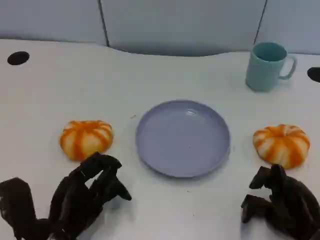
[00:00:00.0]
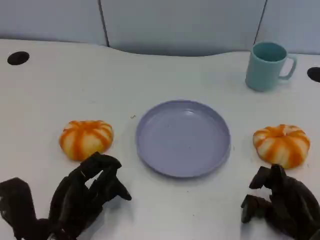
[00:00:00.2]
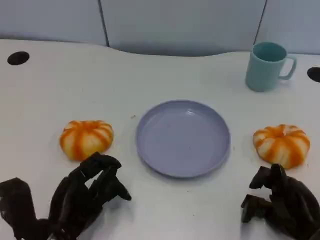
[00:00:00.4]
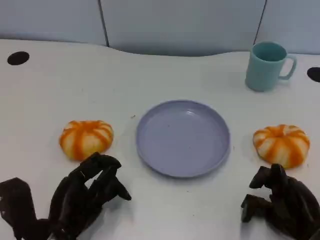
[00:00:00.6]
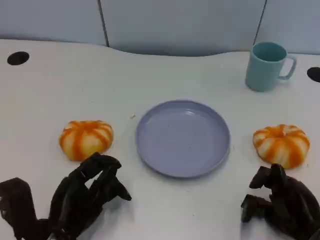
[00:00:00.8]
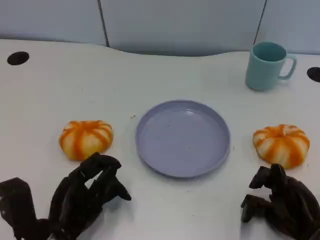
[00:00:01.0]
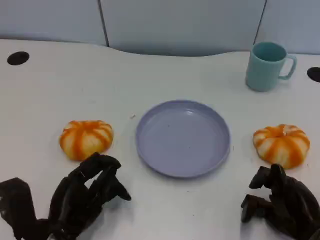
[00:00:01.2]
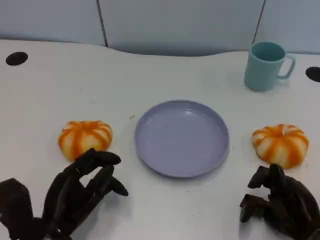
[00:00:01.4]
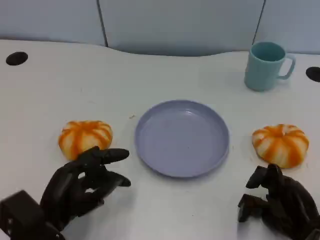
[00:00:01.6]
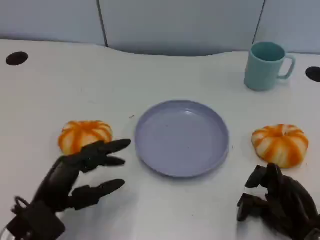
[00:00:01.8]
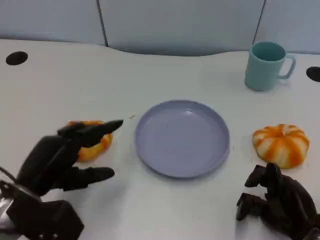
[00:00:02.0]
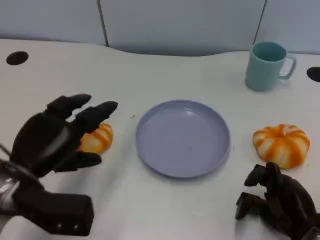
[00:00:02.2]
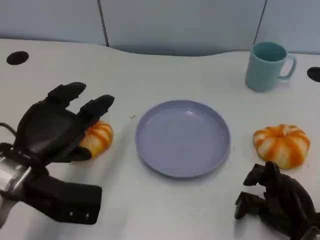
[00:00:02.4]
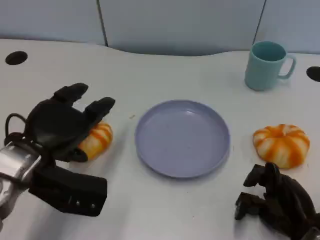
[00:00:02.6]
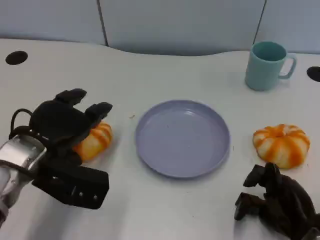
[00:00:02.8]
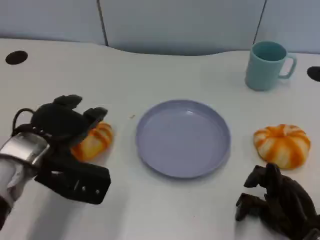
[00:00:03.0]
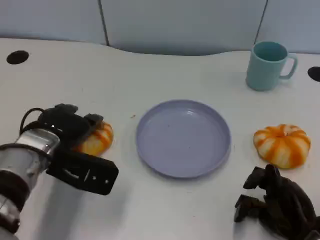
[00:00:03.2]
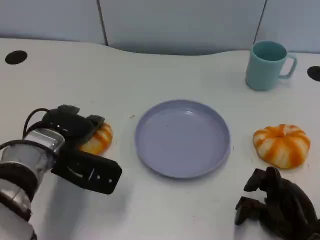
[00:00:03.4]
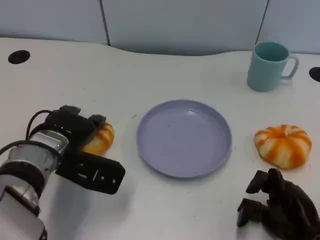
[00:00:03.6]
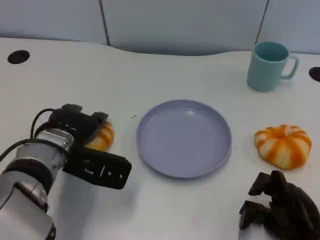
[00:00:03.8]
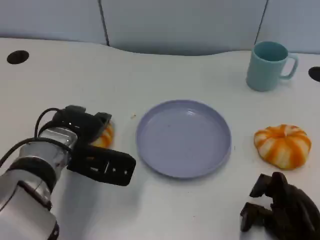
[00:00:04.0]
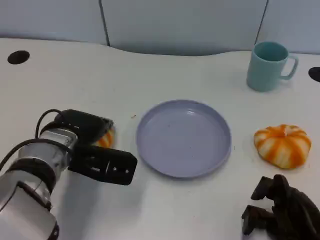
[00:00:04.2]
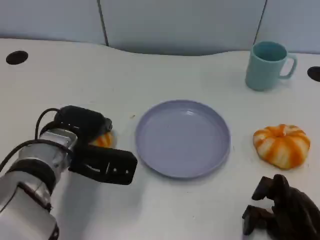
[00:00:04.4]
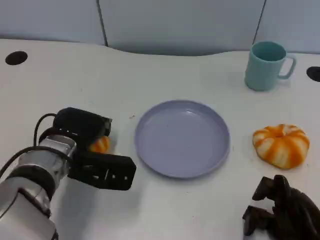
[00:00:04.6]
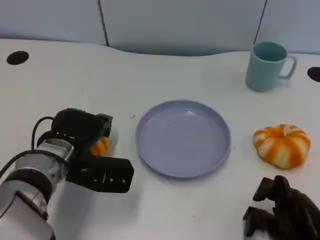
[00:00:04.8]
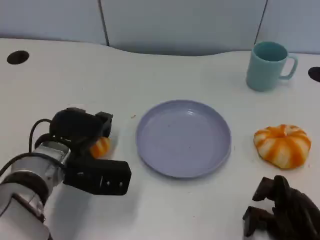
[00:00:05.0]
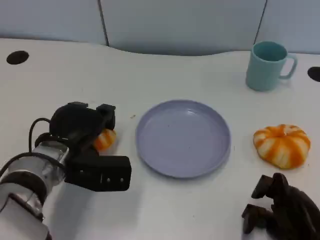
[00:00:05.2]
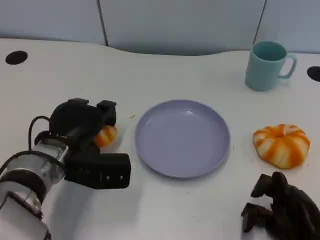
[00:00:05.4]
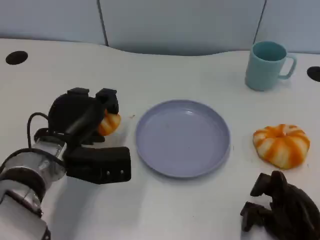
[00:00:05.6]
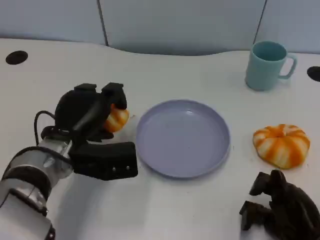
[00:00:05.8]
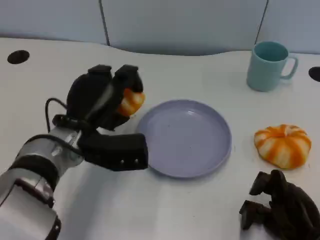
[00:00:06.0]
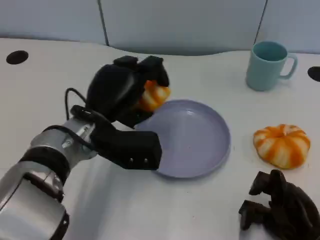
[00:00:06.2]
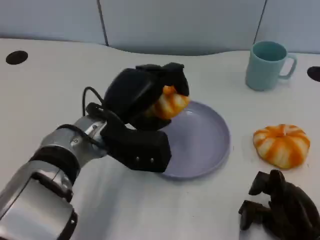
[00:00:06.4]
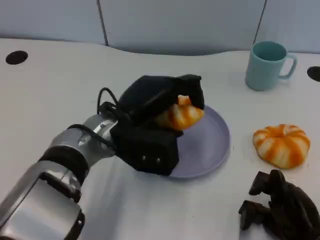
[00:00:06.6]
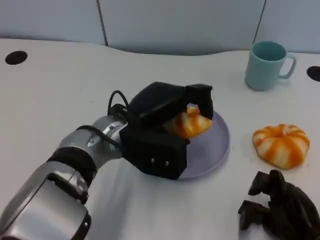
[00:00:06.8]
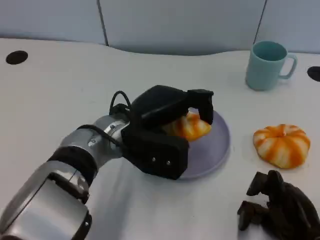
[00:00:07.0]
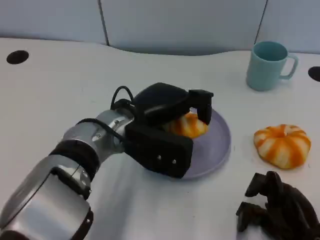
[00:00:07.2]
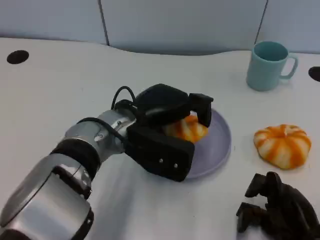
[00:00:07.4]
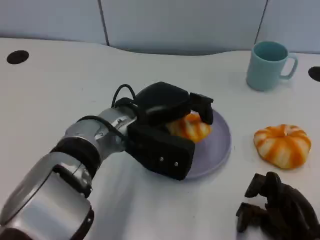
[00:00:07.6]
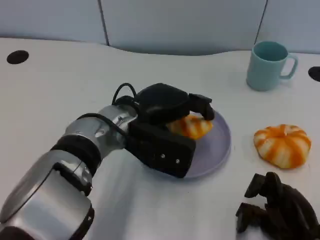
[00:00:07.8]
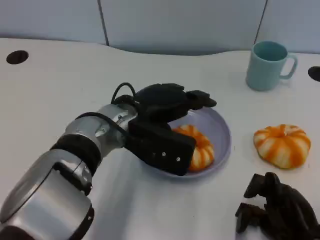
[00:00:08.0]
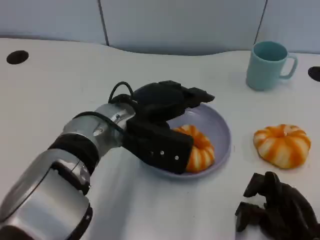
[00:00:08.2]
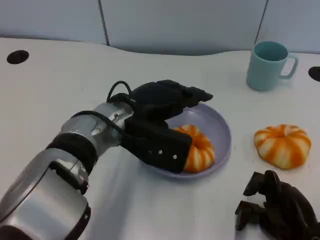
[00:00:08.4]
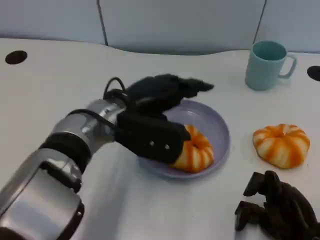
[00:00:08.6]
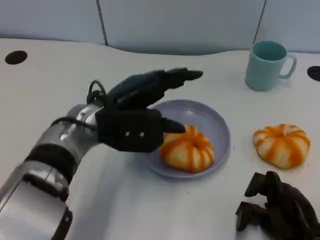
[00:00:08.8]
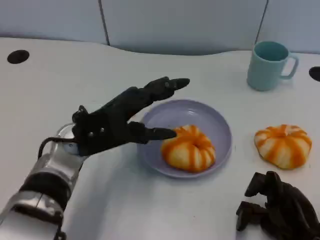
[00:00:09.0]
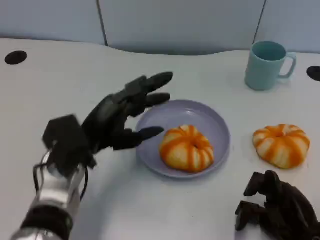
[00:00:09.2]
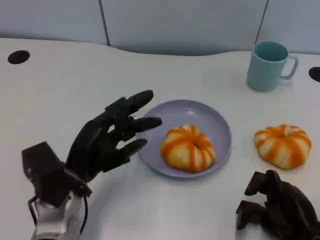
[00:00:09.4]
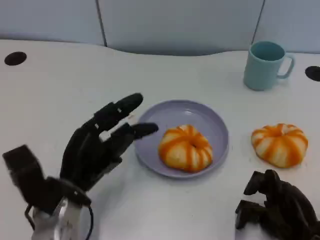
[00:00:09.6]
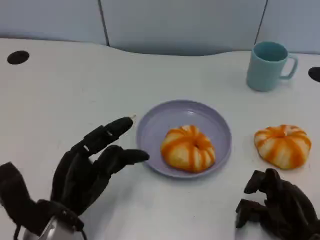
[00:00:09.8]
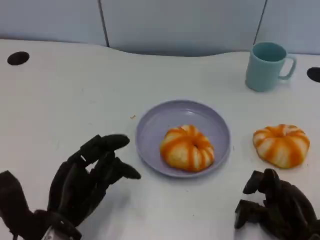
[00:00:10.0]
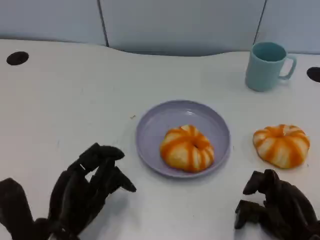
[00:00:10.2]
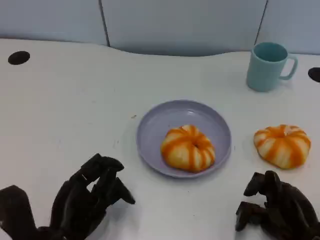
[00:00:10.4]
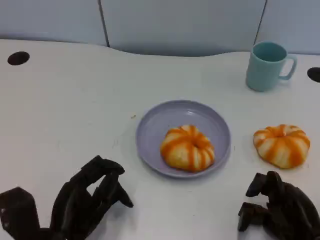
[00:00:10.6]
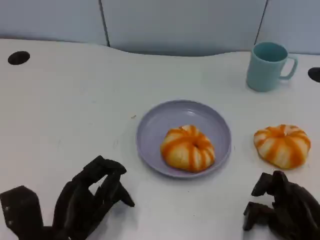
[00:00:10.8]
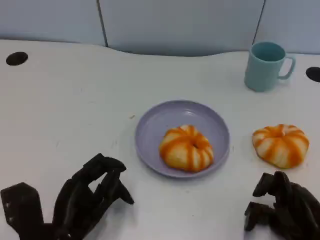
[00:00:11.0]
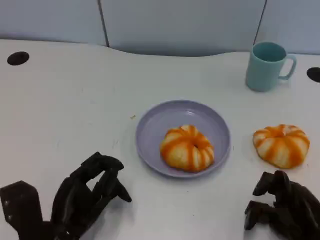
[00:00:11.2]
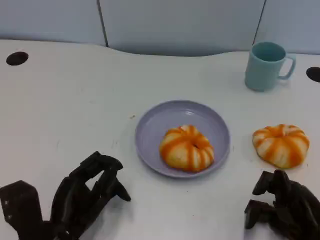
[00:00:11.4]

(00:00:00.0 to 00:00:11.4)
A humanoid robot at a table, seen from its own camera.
Task of the whole recording: Grasp the bread from the table and place it into the plate.
00:00:00.0 - 00:00:01.4: There are only small adjustments of the hands.
00:00:01.4 - 00:00:02.8: The left hand travels upward and forward by roughly 15 cm.
00:00:02.8 - 00:00:04.2: The left hand moves approximately 5 cm.
00:00:05.6 - 00:00:07.2: The left hand moves to the right and upward, approximately 10 cm.
00:00:07.2 - 00:00:08.6: The hands move only a little.
00:00:08.6 - 00:00:10.0: The left hand heads backward, downward and to the left, covering approximately 20 cm.
00:00:10.0 - 00:00:11.4: The hands move only a little.

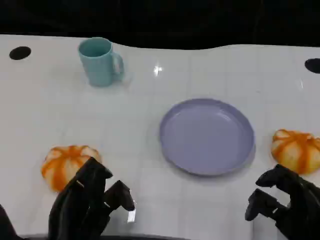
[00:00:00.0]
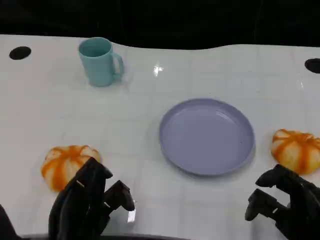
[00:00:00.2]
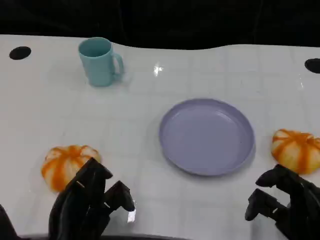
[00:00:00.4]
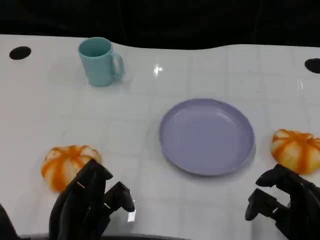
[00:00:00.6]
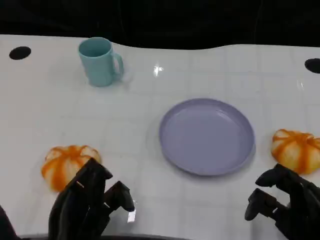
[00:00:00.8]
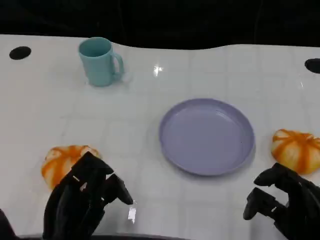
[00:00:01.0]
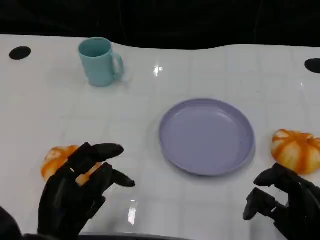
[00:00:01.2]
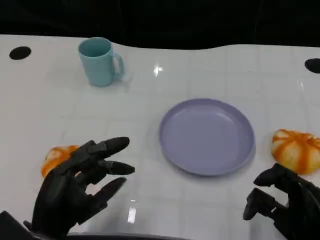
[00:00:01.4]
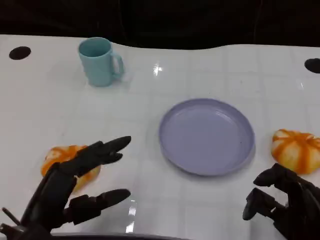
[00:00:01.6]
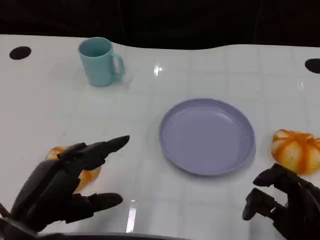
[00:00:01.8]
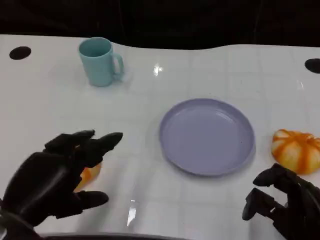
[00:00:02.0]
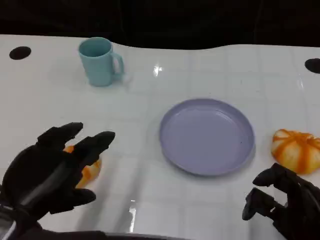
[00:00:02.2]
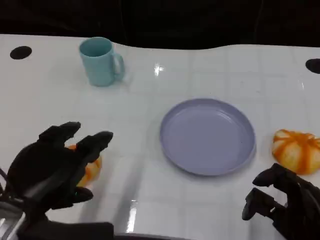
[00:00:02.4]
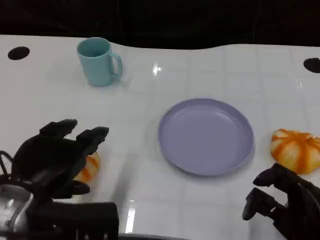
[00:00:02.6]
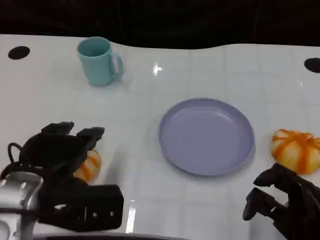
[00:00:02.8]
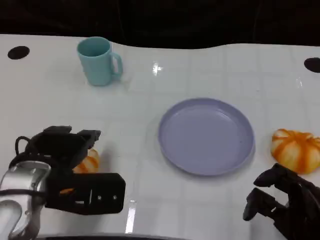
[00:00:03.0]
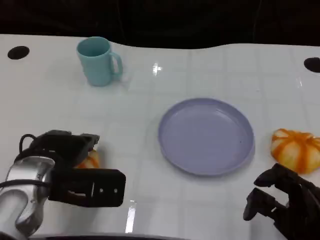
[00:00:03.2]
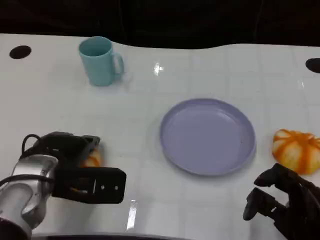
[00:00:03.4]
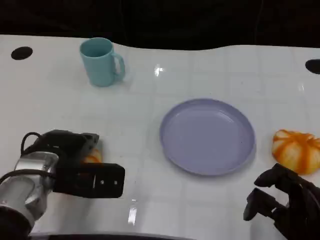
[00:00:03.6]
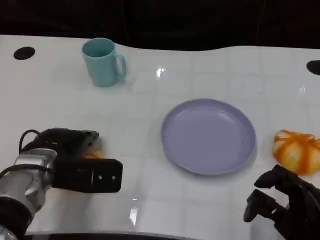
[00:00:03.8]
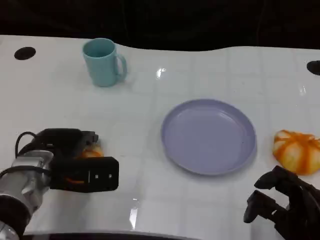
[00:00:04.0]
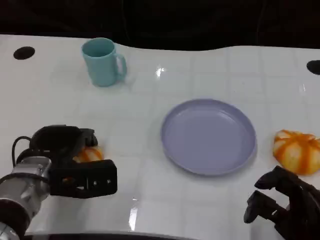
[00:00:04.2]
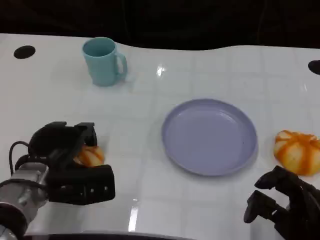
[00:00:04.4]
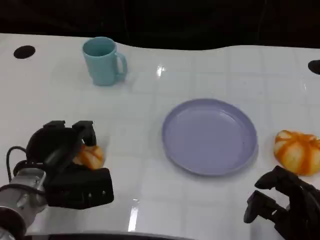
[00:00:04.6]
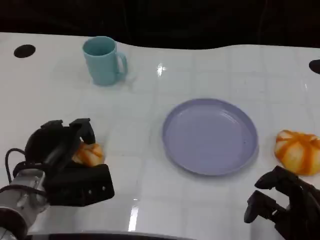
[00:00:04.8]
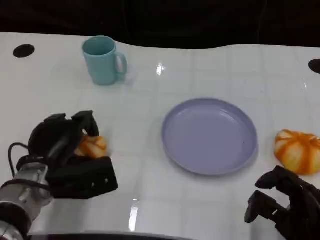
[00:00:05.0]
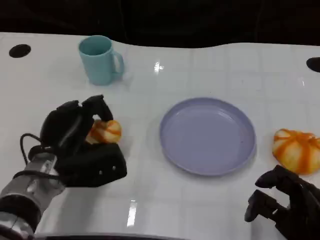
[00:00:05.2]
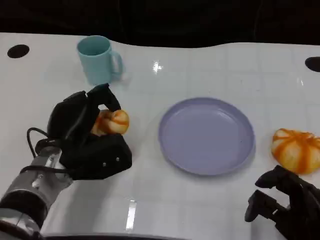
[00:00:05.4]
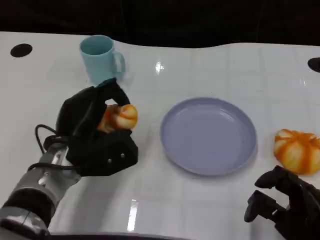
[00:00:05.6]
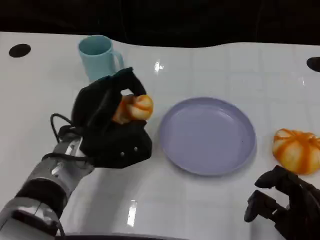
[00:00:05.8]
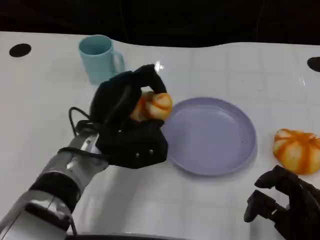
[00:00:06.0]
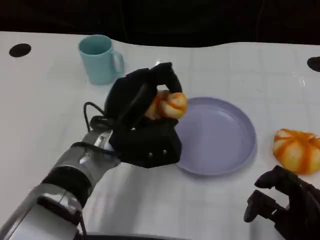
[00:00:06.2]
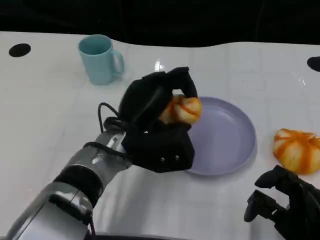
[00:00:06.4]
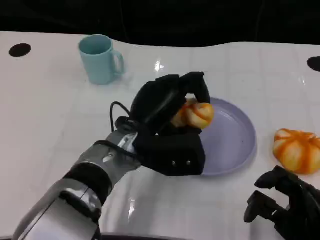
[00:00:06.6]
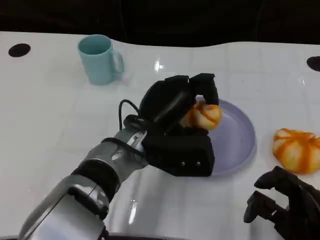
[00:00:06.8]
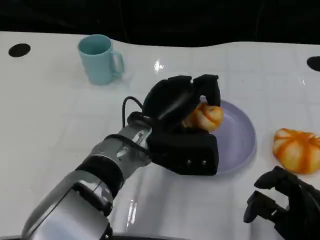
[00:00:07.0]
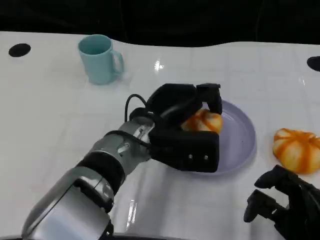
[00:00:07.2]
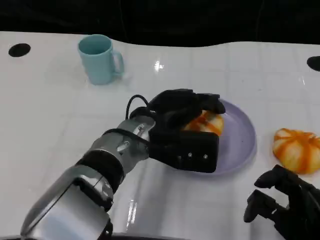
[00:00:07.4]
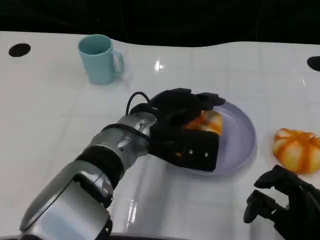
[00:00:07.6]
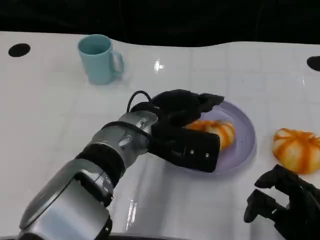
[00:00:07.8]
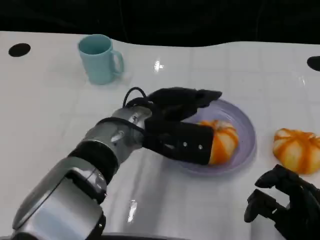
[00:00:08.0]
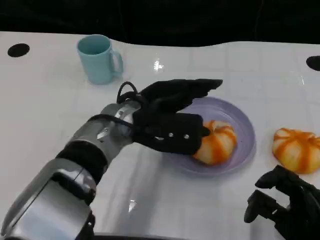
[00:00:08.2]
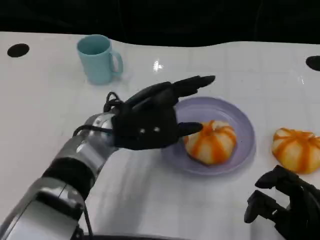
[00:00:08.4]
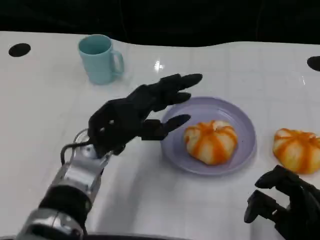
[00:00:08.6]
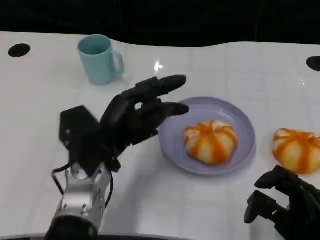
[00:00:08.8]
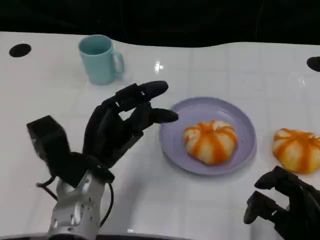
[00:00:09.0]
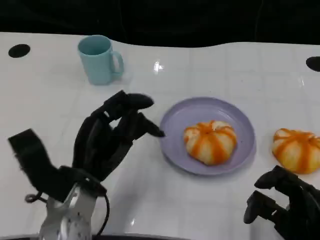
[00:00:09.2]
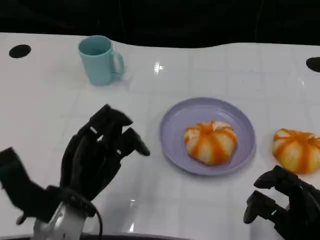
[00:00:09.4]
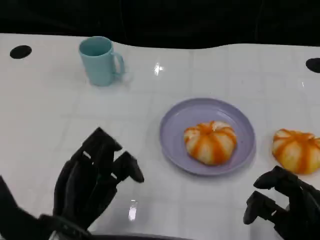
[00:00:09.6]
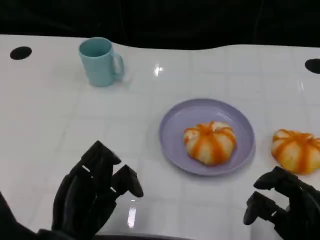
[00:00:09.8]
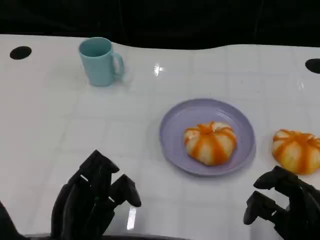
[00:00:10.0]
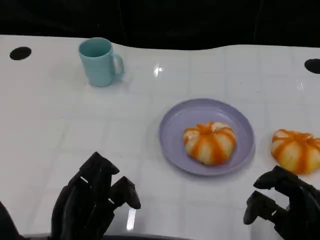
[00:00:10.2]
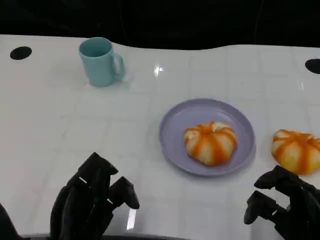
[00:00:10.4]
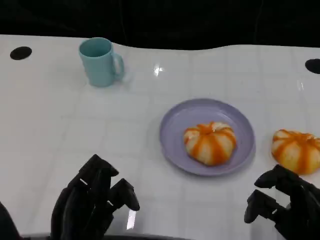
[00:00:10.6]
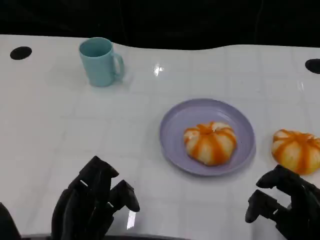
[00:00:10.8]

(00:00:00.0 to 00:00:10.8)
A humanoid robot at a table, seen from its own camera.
Task of the whole recording: Grasp the bread from the table and place it into the plate.
00:00:00.0 - 00:00:01.6: The left hand moves upward, approximately 5 cm.
00:00:01.6 - 00:00:03.0: The left hand goes about 10 cm forward.
00:00:03.0 - 00:00:04.6: The left hand travels downward by roughly 5 cm.
00:00:04.6 - 00:00:06.2: The left hand travels to the right and upward by some 15 cm.
00:00:07.8 - 00:00:09.2: The left hand shifts roughly 15 cm to the left and backward.
00:00:09.2 - 00:00:10.8: The left hand goes about 10 cm backward.
